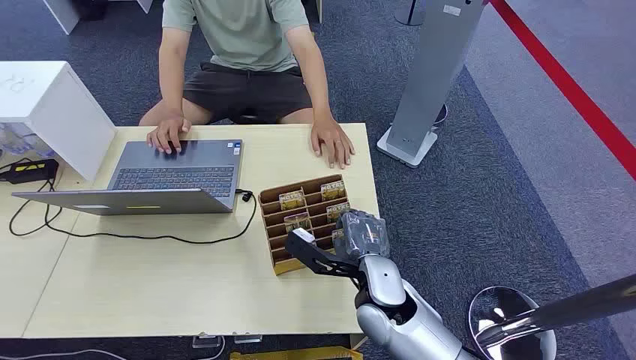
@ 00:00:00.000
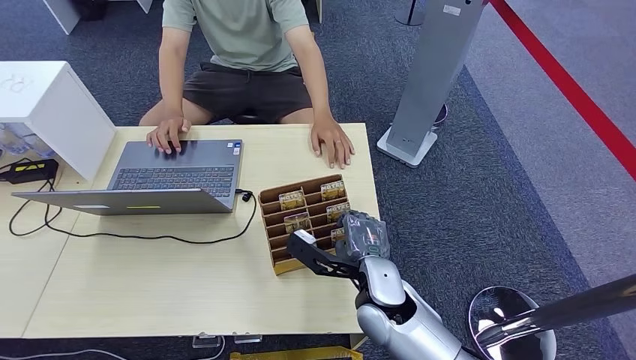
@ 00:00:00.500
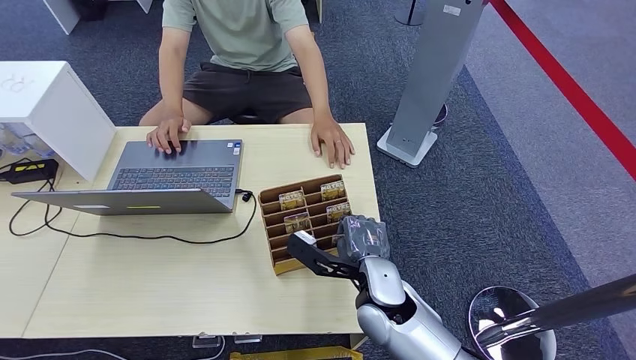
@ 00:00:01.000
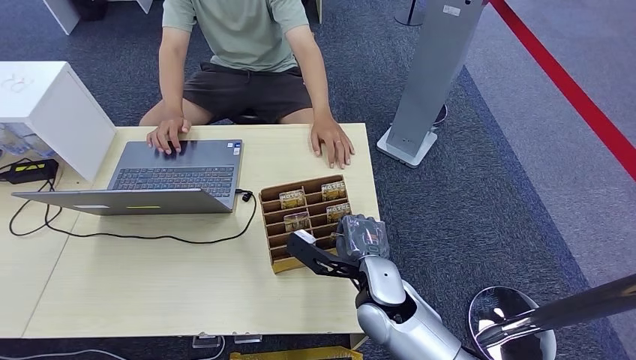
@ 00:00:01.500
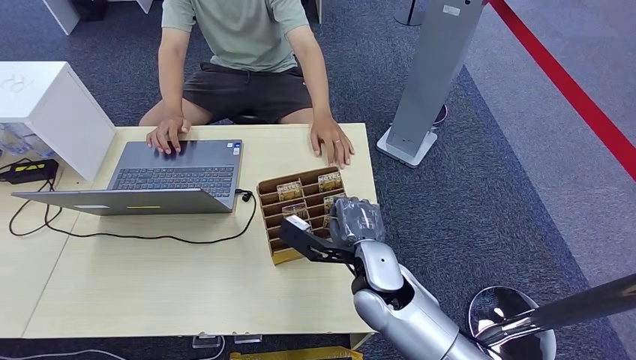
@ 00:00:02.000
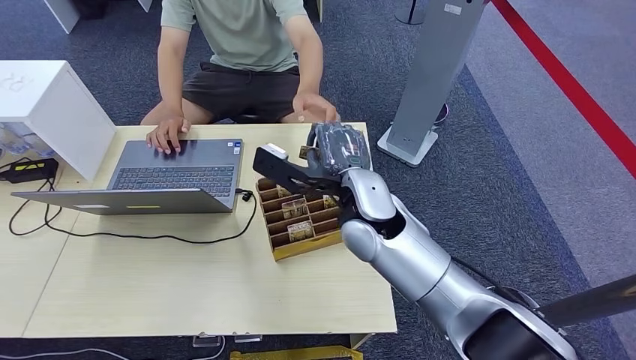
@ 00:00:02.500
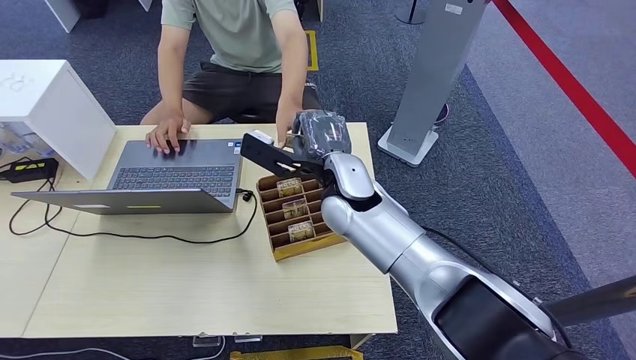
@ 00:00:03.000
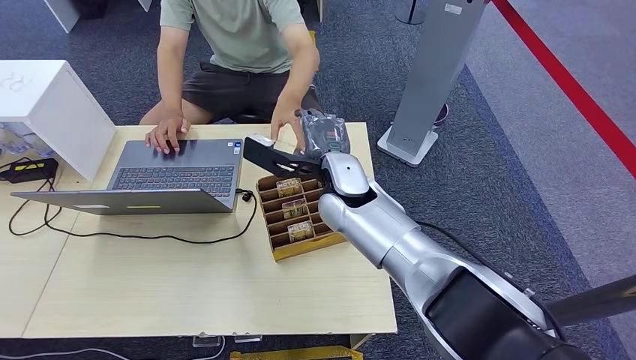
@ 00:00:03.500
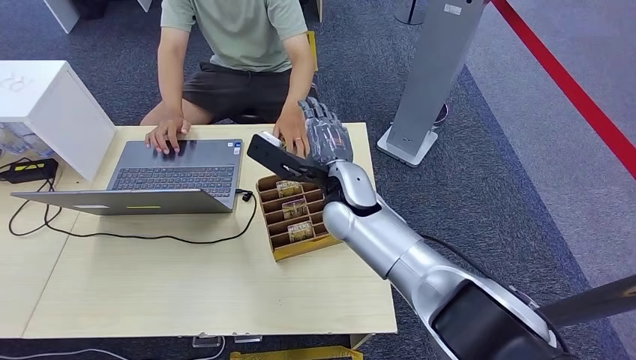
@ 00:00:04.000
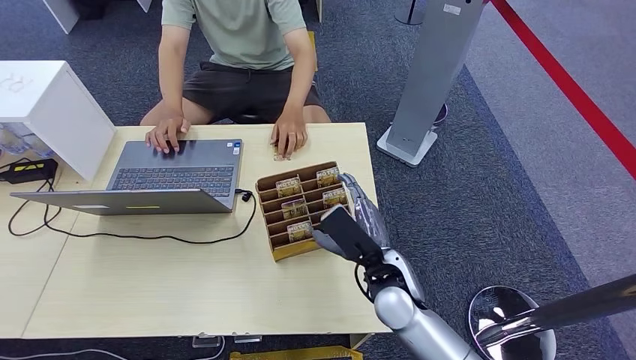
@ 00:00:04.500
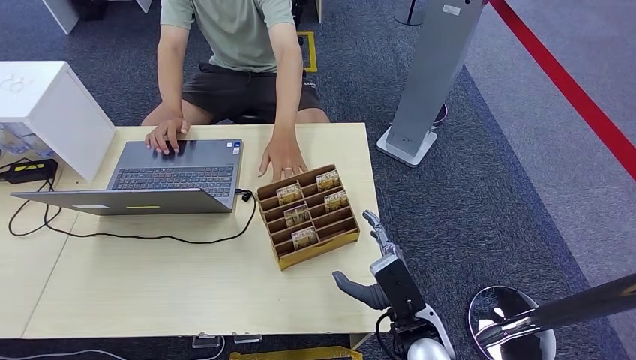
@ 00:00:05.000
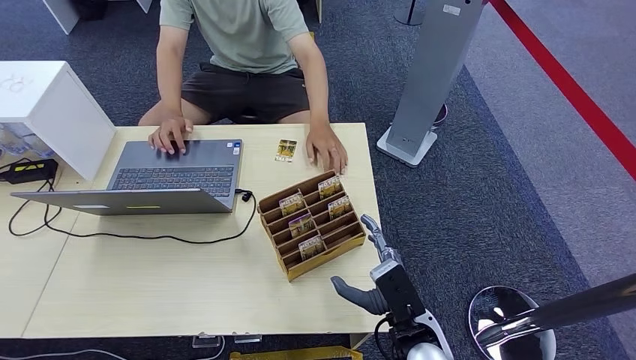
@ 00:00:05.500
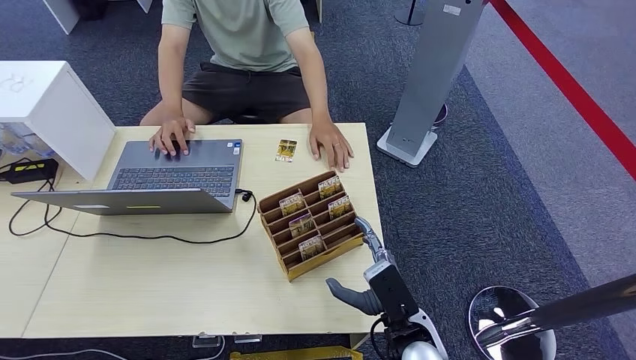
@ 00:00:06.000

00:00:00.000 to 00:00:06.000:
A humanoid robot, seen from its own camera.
Step, 00:00:00.000 to 00:00:02.000: Pick up the room card from the card holder.
Step, 00:00:02.500 to 00:00:06.000: Hand the room card to the target.
00:00:02.000 to 00:00:04.000: The right hand moves forward and upward, about 15 cm.
00:00:04.000 to 00:00:06.000: The right hand moves backward, downward and to the right, about 25 cm.
